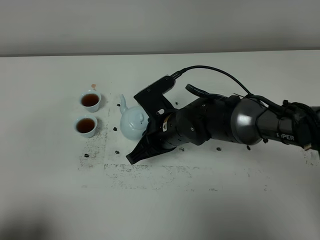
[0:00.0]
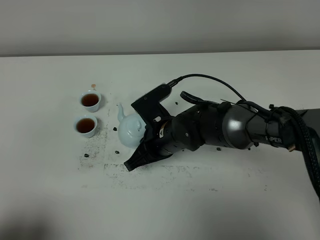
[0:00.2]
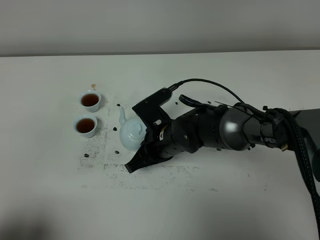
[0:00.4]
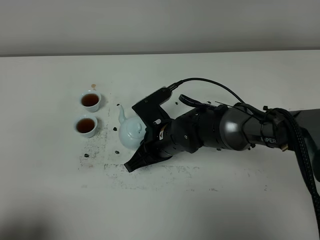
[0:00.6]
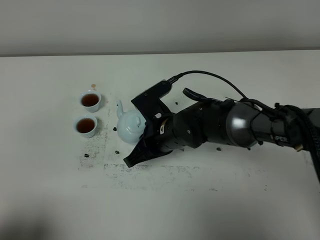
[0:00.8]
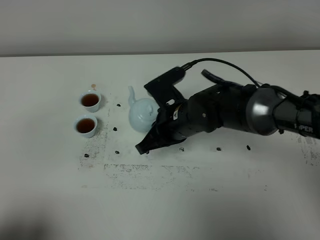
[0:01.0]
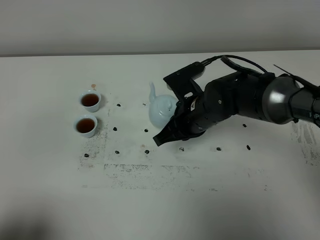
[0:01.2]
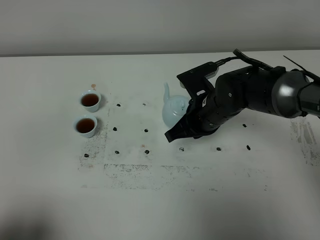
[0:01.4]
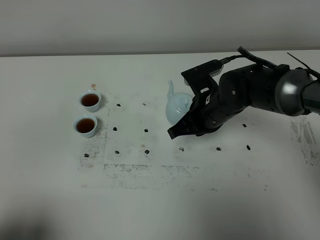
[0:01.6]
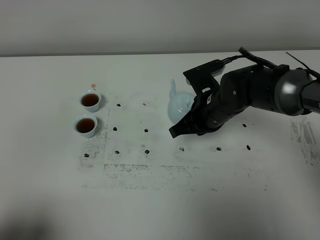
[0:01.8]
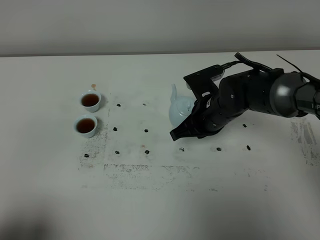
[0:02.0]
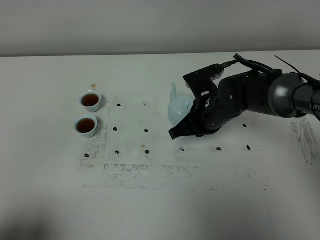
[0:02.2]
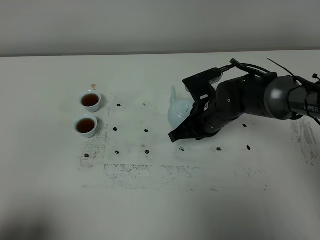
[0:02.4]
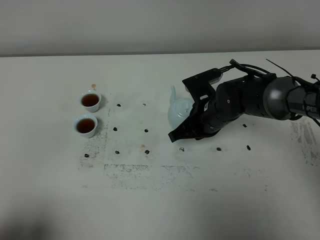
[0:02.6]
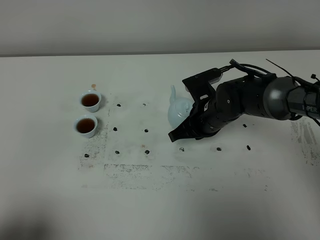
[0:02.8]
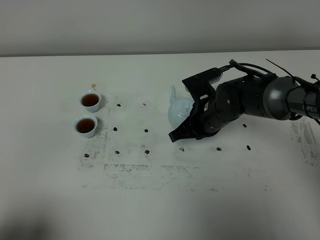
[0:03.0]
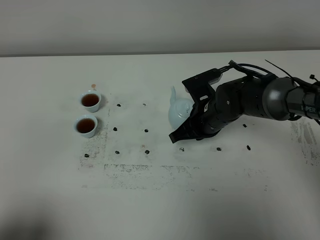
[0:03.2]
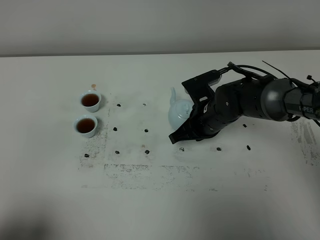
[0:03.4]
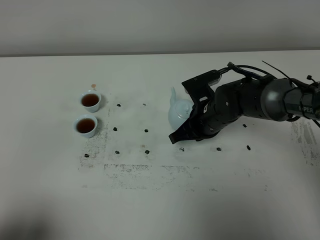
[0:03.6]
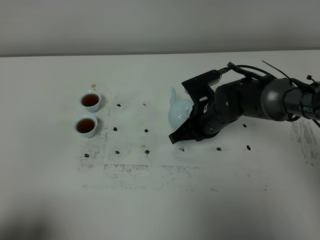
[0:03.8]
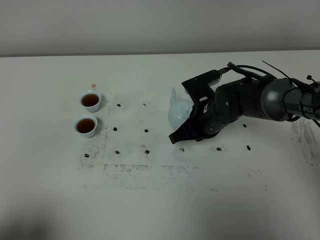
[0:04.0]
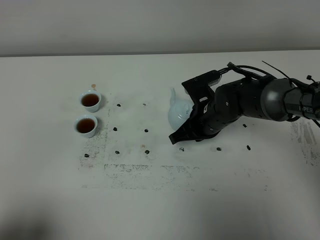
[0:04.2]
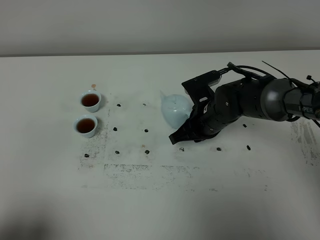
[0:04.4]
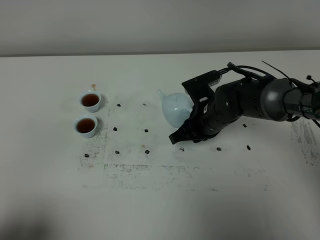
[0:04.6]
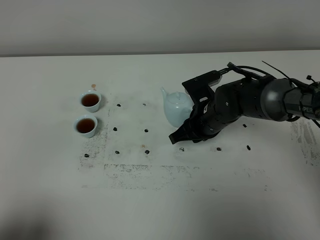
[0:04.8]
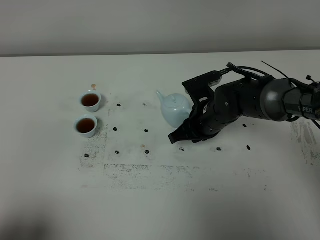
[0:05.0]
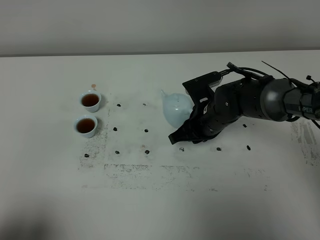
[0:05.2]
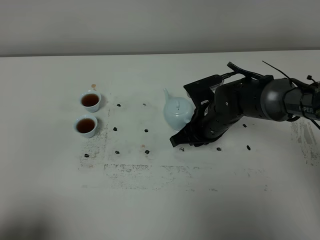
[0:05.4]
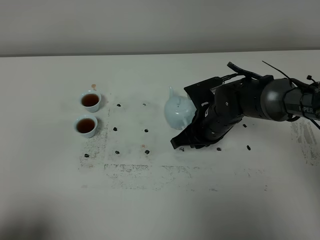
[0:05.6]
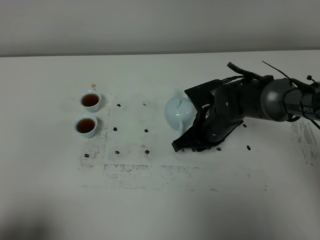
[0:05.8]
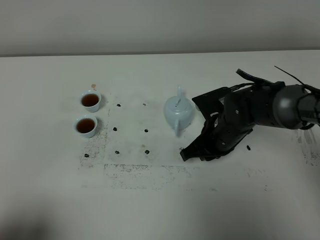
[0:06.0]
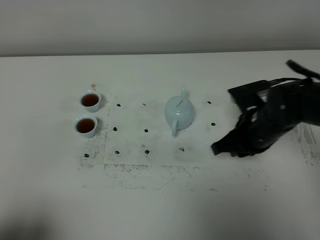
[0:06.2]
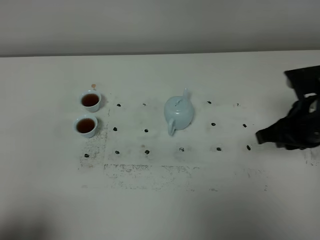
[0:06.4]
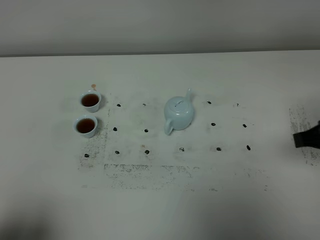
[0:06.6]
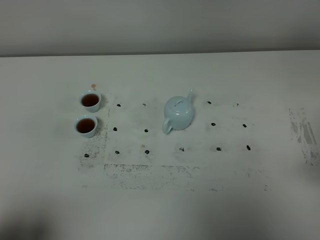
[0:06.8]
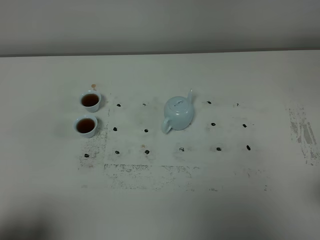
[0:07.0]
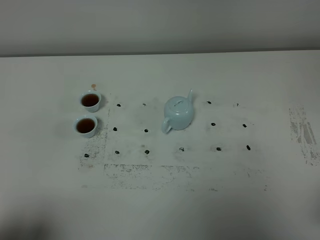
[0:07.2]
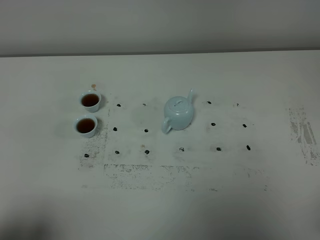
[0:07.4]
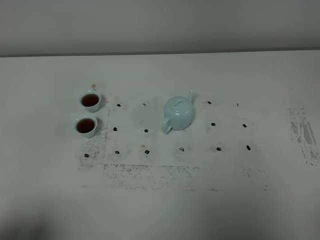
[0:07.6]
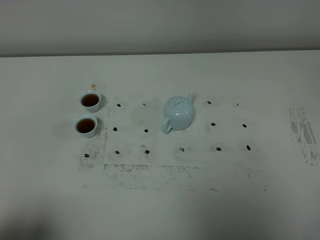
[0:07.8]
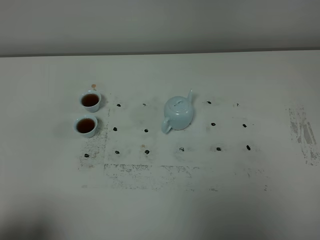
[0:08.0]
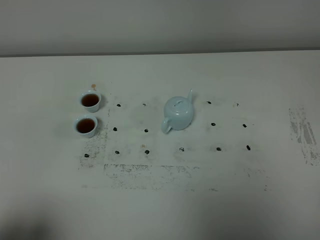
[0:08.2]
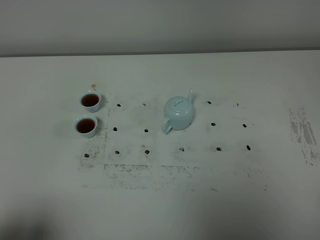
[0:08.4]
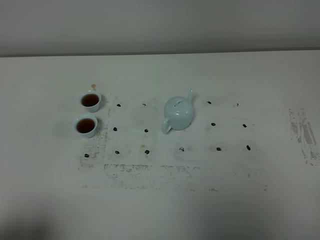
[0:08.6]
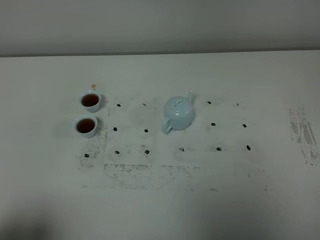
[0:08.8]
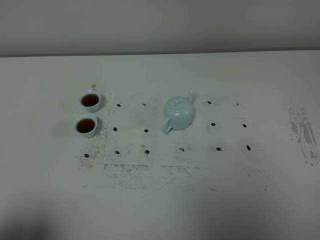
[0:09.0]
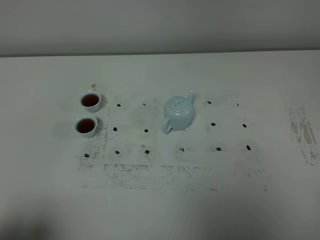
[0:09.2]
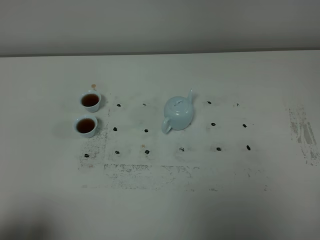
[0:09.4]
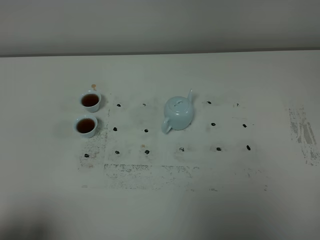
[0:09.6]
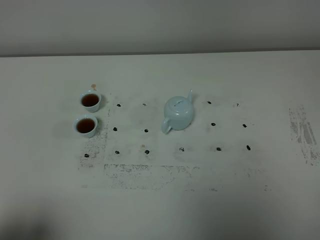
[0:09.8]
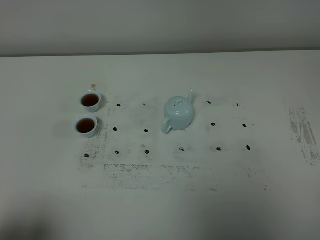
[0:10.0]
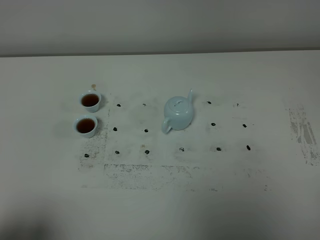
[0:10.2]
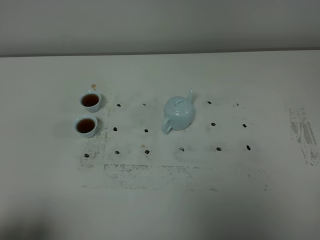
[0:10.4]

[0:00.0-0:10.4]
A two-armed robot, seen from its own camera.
Task of the whole recording: grasp the blue porcelain teapot and pour the tea into the two blue porcelain teacups one by one, put the blue porcelain teapot back in its original place.
0:00.0 to 0:01.4: The right gripper shifts approximately 10 cm to the right.
0:01.4 to 0:03.0: The grippers make only small movements.
0:03.0 to 0:04.4: Both grippers stay about where they are.
0:04.4 to 0:06.0: The grippers move only a little.
0:06.0 to 0:07.4: The right gripper heads backward, to the right and upward, covering roughly 35 cm.
0:09.0 to 0:10.4: The two grippers keep their place.

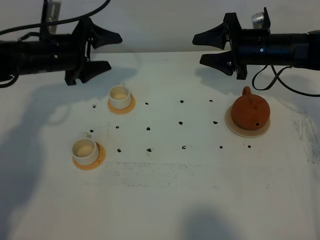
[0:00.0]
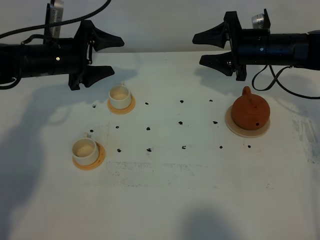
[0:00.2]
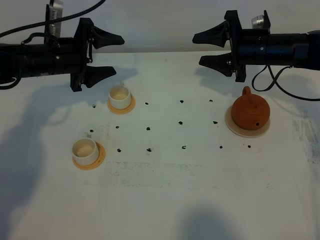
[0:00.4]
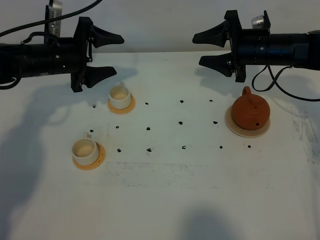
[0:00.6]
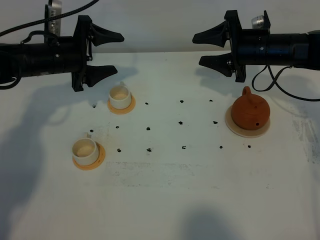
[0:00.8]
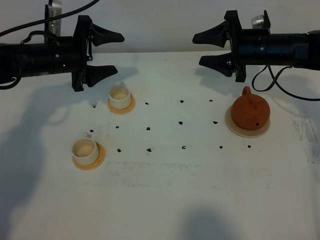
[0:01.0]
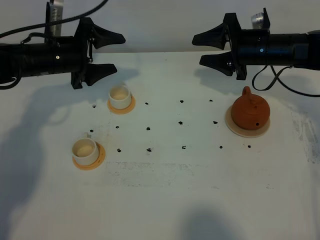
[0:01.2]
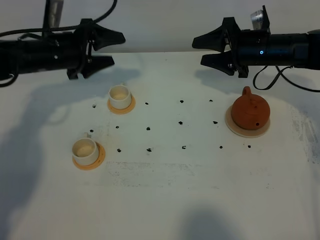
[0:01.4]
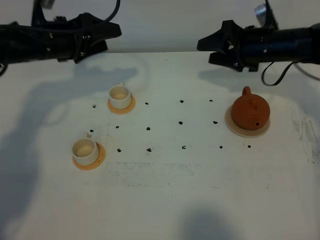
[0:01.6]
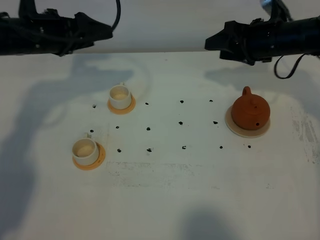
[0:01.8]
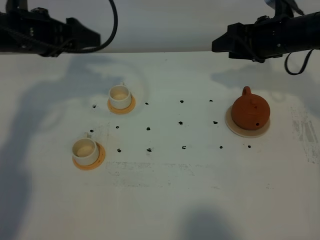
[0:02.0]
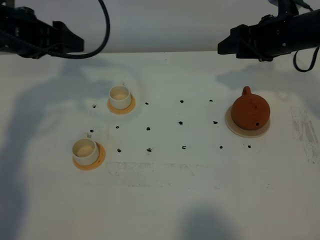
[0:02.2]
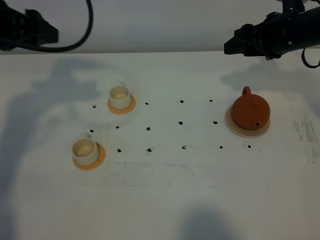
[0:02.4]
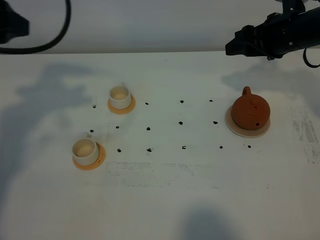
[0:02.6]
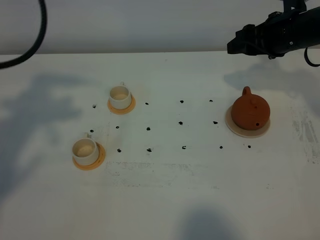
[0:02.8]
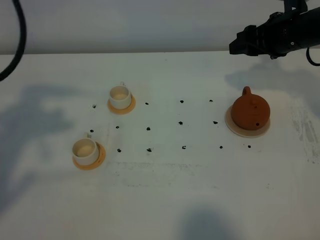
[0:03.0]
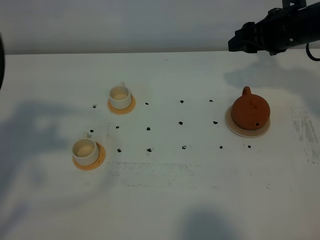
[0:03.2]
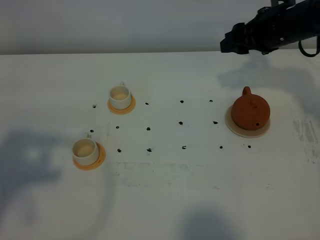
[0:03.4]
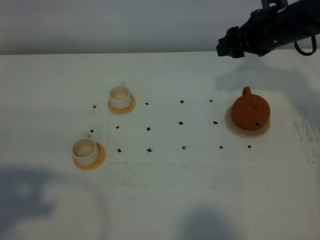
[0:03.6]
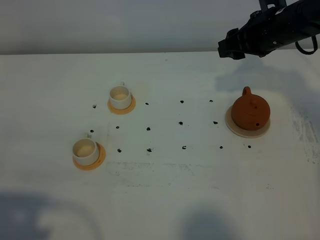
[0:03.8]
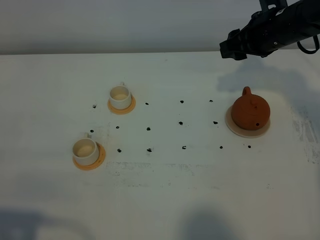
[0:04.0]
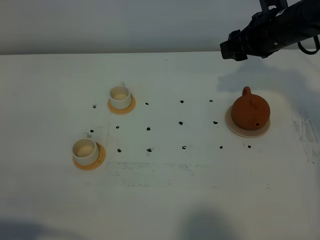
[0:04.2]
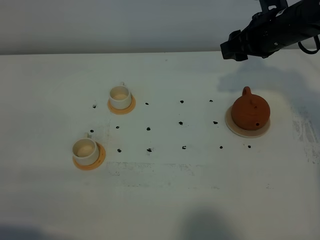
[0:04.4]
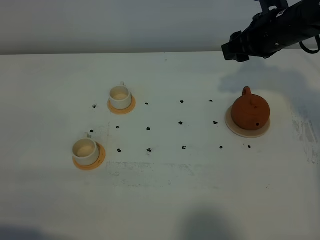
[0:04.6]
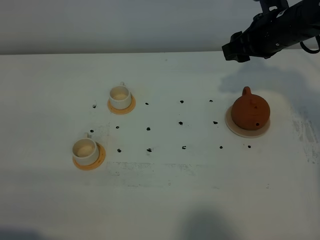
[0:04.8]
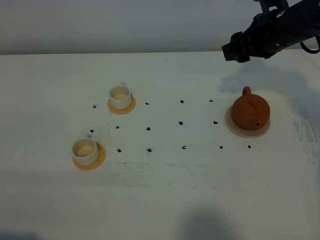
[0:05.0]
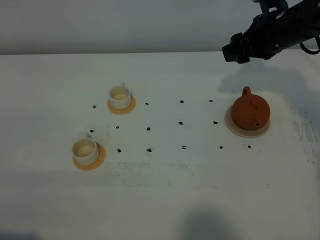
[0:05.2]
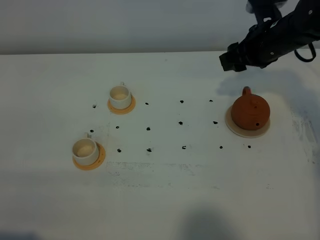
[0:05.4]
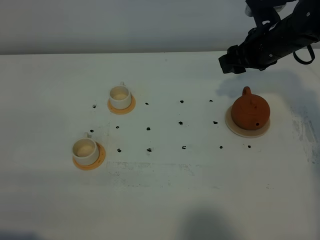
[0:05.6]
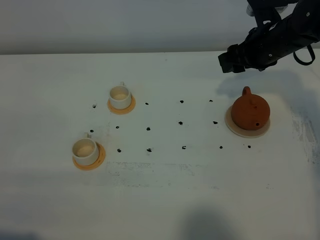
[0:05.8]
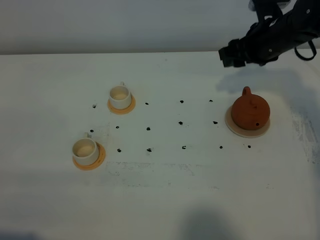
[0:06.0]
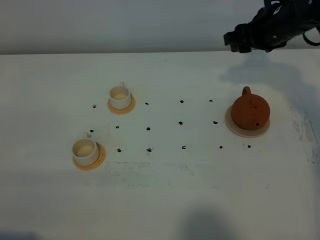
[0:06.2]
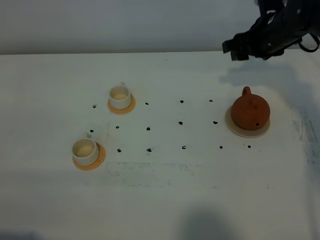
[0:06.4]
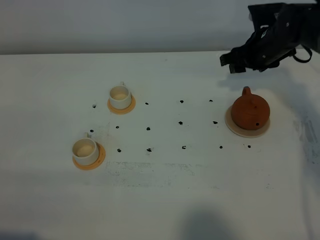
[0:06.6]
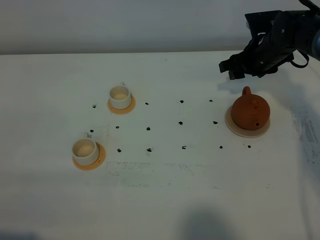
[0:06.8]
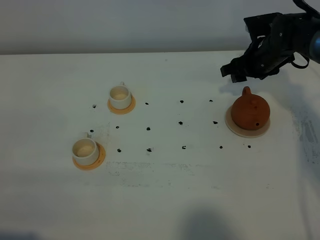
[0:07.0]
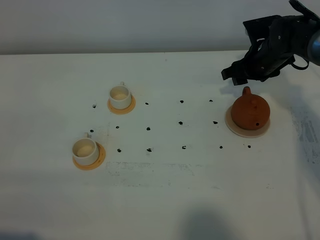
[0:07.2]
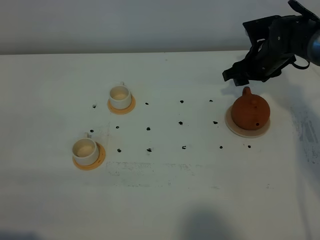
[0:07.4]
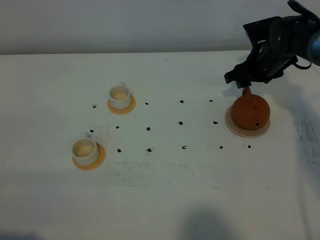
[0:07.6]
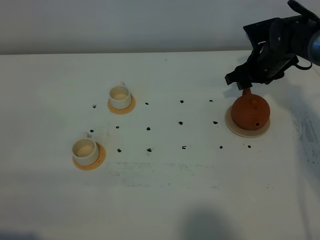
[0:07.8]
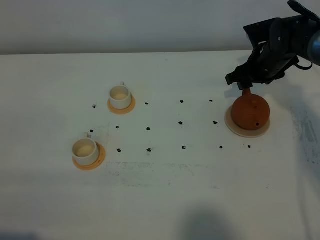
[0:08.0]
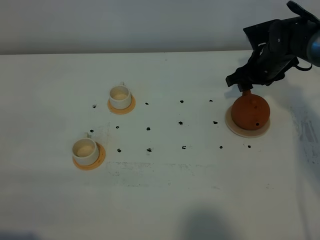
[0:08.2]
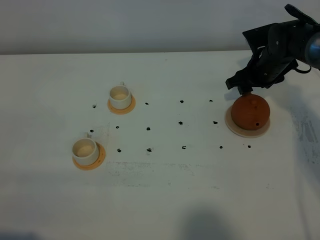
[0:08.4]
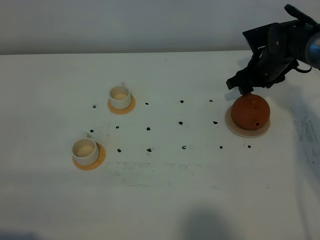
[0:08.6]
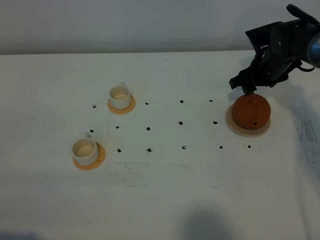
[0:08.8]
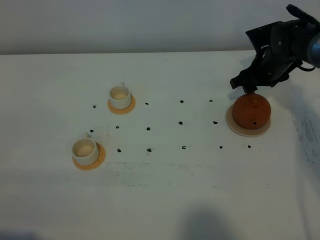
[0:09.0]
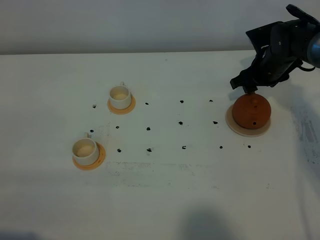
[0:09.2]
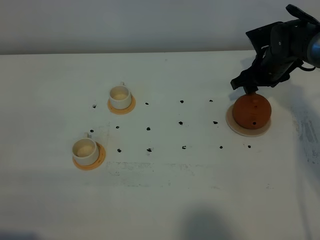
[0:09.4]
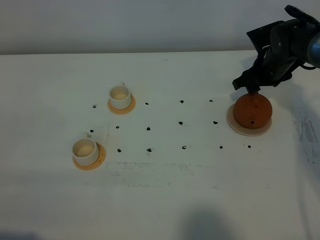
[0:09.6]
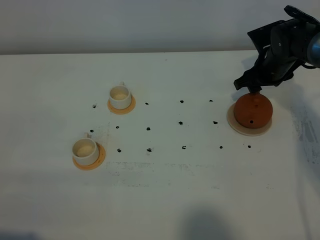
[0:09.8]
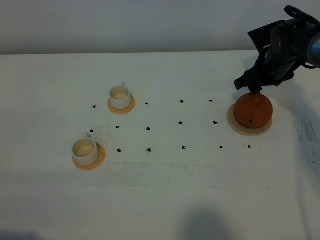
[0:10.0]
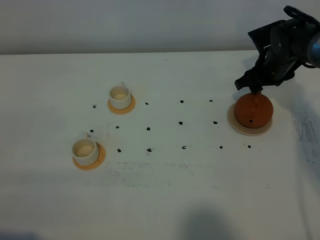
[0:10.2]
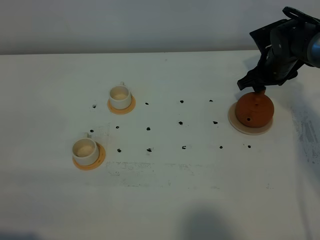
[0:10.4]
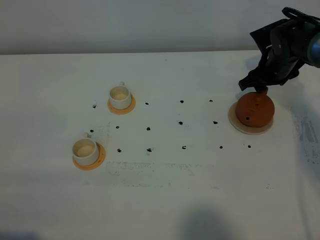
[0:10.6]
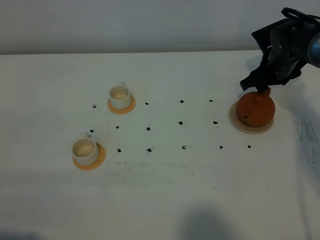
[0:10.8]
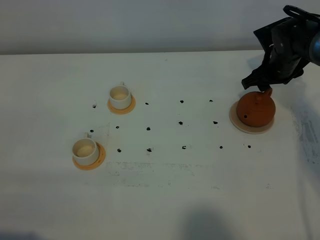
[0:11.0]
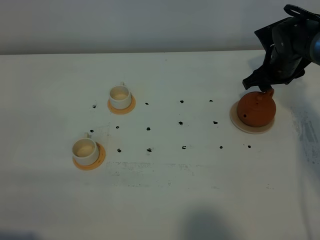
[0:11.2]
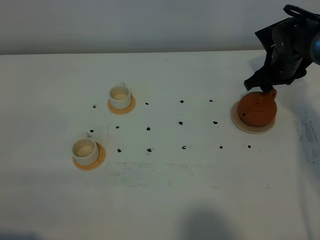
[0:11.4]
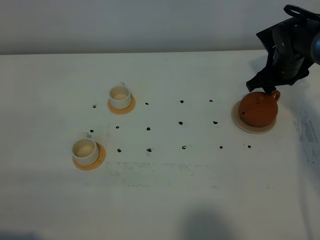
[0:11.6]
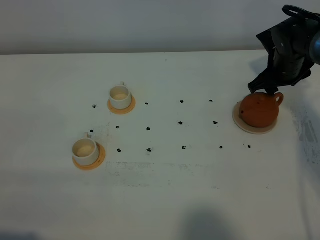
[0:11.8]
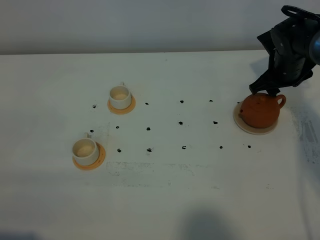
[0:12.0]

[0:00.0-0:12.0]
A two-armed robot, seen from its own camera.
Task of the whole recording: grasp the brown teapot and pour the tea into the two white teacups one by one, put the brown teapot back in its original place.
0:00.0 to 0:01.6: The left gripper is displaced upward by about 5 cm.
0:01.6 to 0:03.0: The right gripper moves about 5 cm, while the left gripper travels backward and upward by roughly 30 cm.
0:03.0 to 0:04.4: The left gripper is displaced backward and downward by about 25 cm.
0:04.4 to 0:06.0: The grippers make only small movements.
0:06.0 to 0:07.6: The right gripper shifts roughly 10 cm downward.
0:07.6 to 0:10.4: The grippers stay close to where they were, moving slightly.
0:10.4 to 0:12.0: The grippers stay close to where they were, moving slightly.
